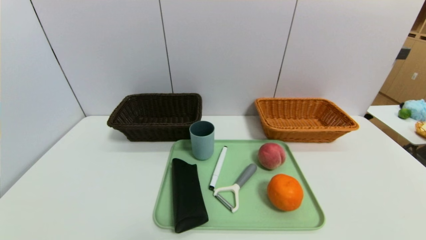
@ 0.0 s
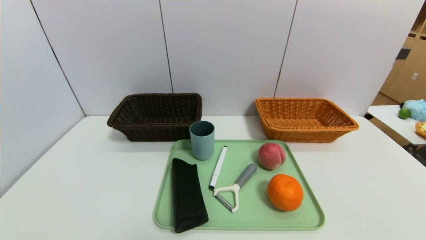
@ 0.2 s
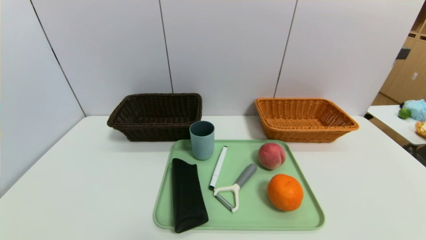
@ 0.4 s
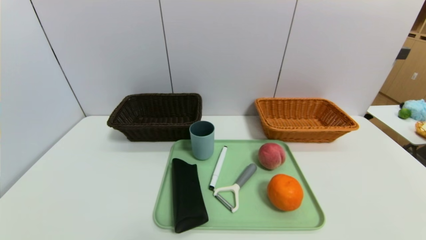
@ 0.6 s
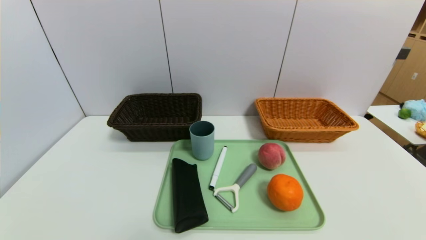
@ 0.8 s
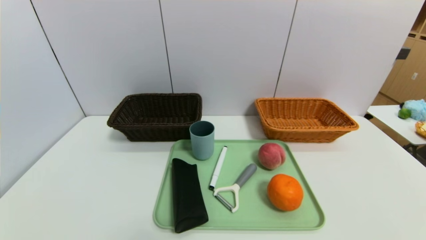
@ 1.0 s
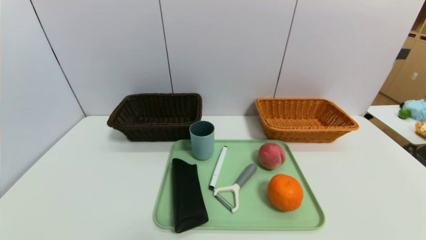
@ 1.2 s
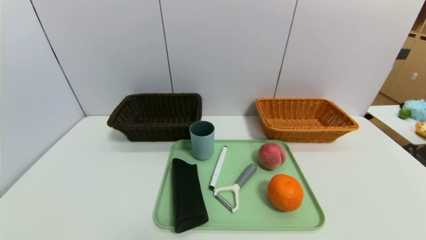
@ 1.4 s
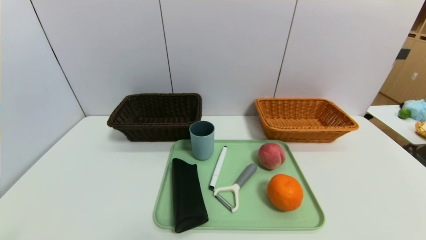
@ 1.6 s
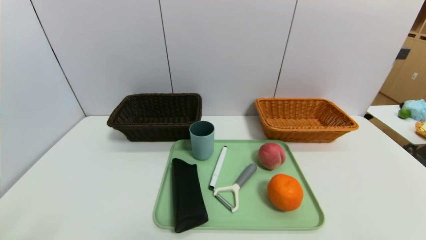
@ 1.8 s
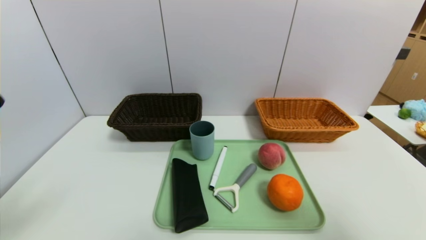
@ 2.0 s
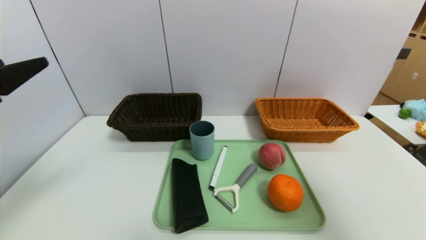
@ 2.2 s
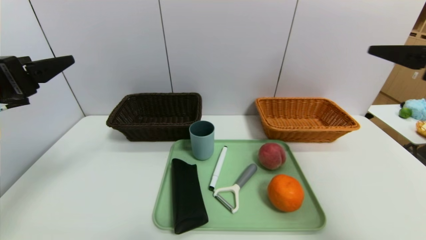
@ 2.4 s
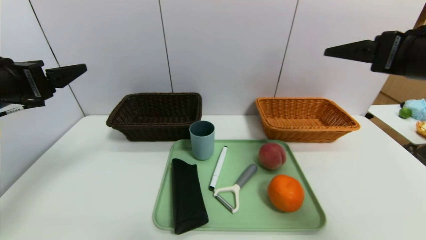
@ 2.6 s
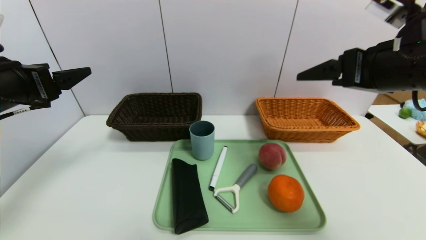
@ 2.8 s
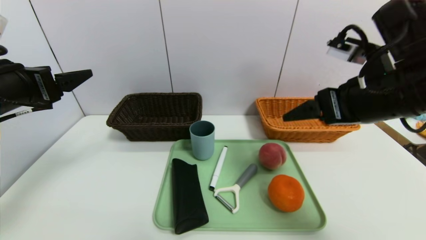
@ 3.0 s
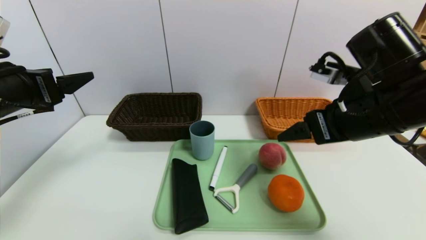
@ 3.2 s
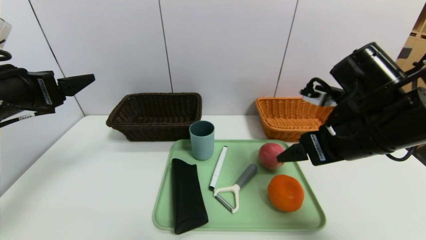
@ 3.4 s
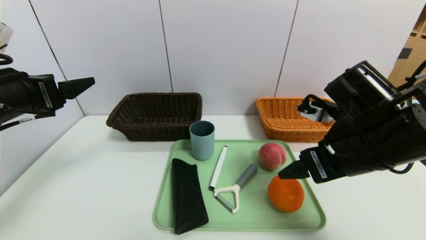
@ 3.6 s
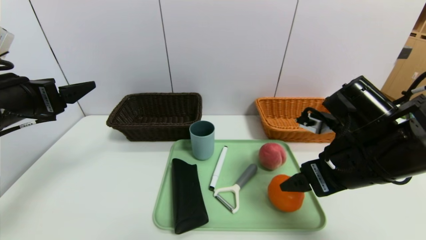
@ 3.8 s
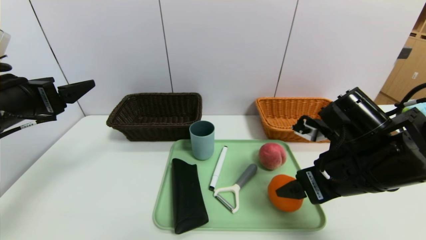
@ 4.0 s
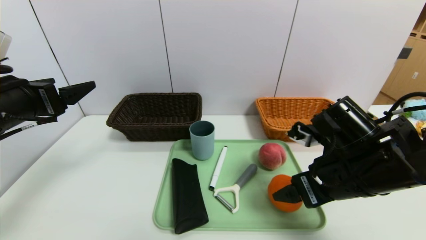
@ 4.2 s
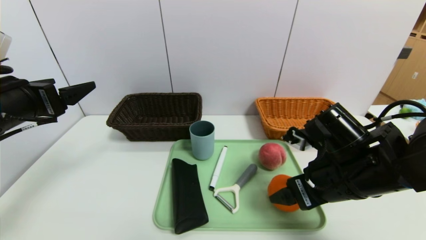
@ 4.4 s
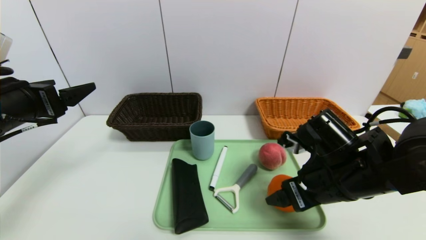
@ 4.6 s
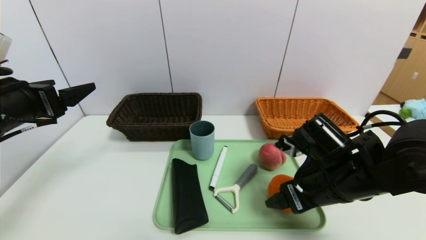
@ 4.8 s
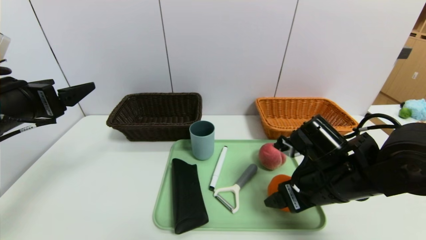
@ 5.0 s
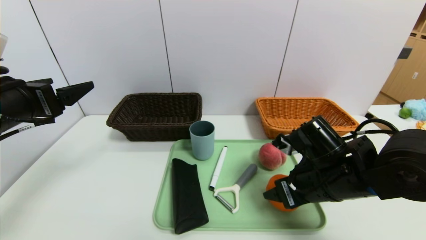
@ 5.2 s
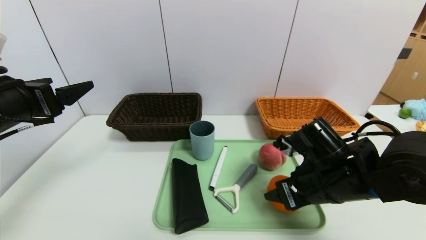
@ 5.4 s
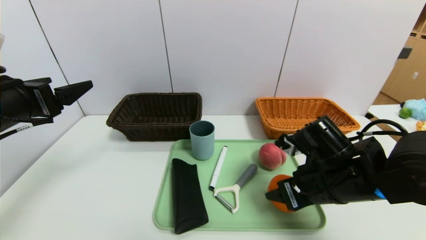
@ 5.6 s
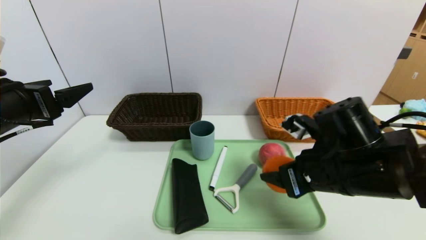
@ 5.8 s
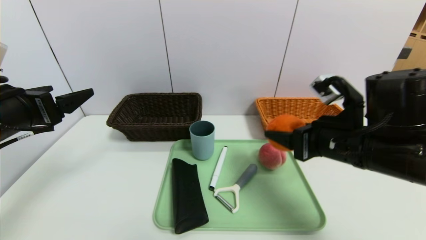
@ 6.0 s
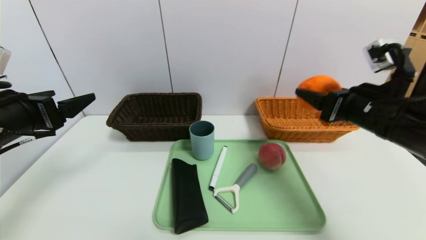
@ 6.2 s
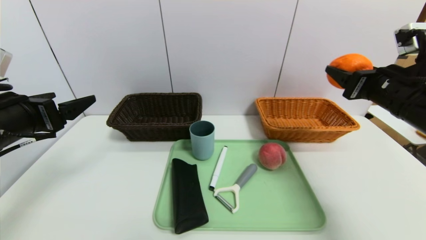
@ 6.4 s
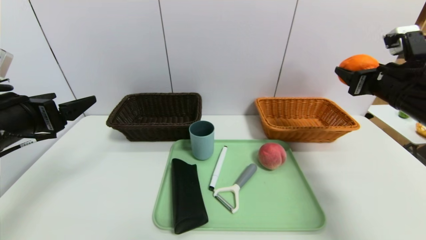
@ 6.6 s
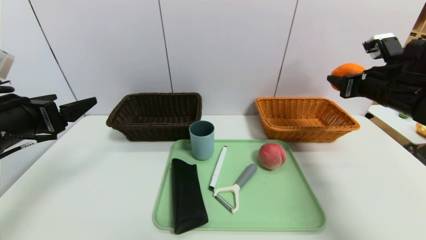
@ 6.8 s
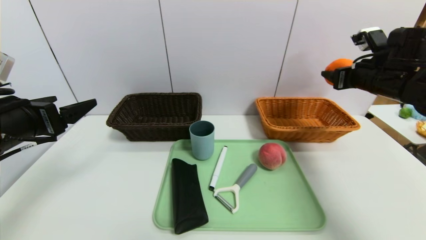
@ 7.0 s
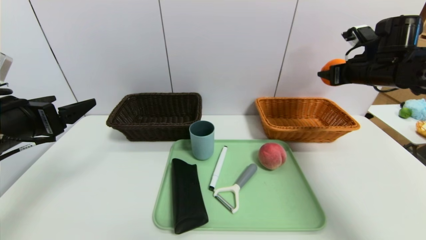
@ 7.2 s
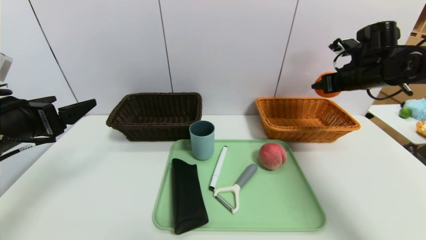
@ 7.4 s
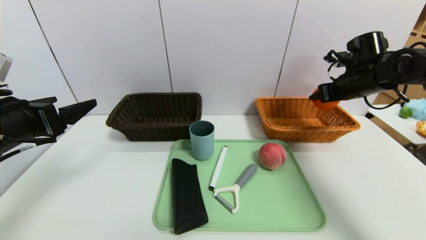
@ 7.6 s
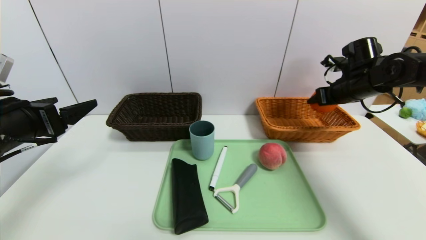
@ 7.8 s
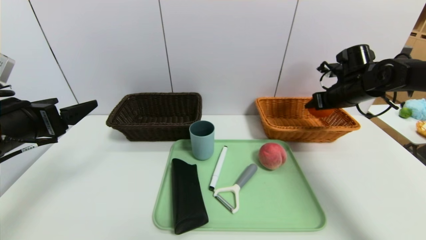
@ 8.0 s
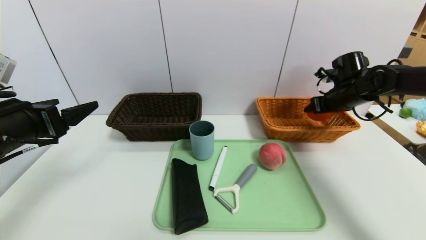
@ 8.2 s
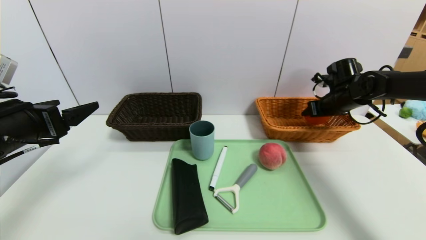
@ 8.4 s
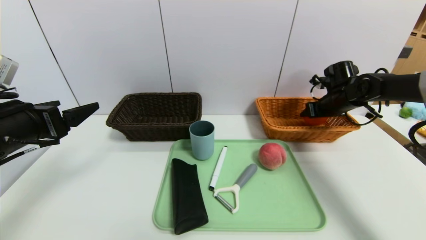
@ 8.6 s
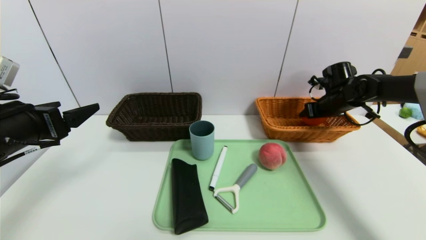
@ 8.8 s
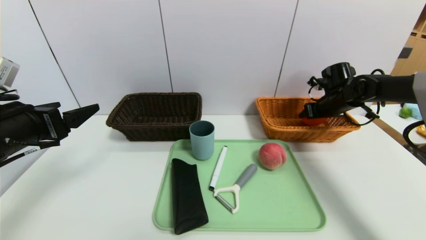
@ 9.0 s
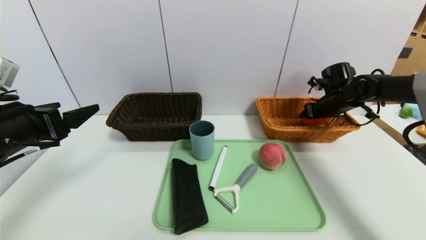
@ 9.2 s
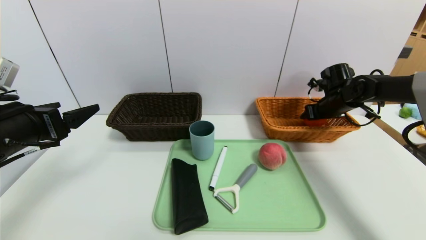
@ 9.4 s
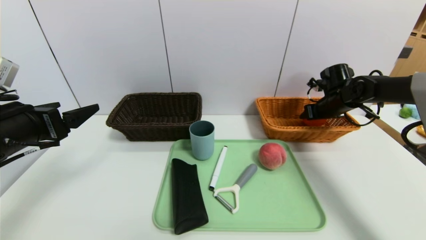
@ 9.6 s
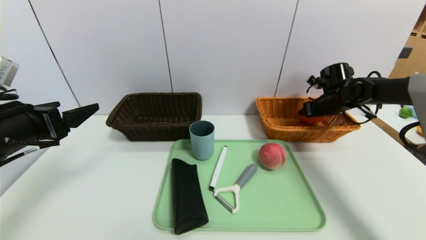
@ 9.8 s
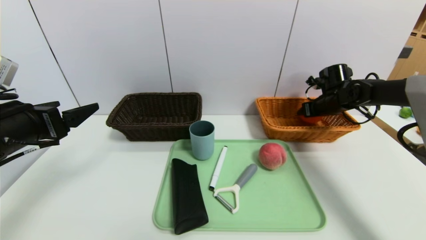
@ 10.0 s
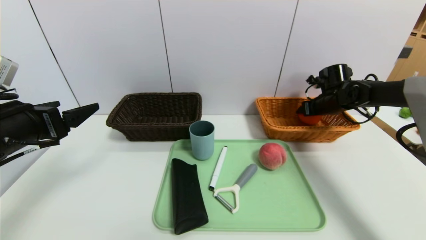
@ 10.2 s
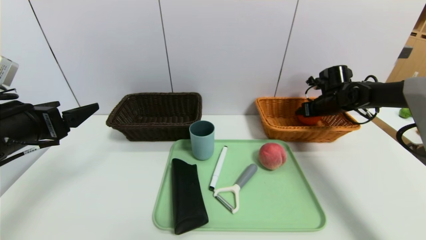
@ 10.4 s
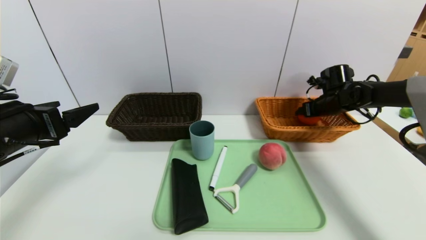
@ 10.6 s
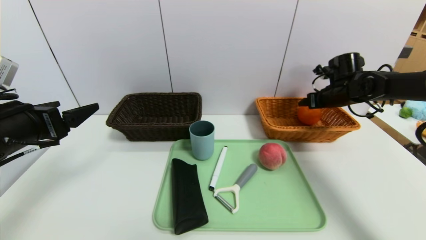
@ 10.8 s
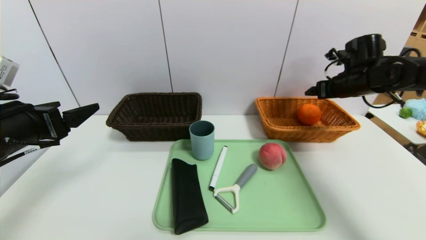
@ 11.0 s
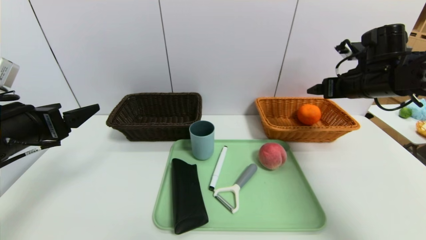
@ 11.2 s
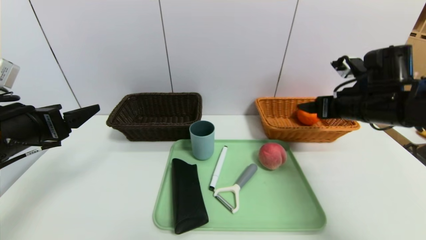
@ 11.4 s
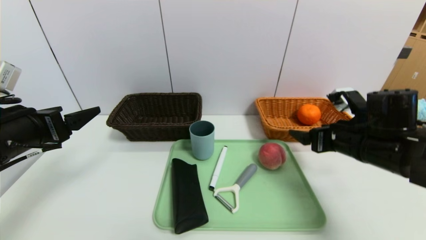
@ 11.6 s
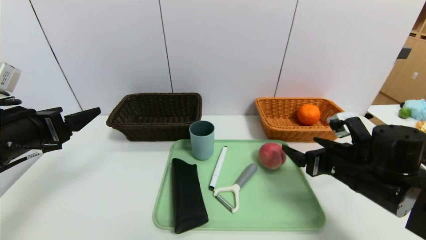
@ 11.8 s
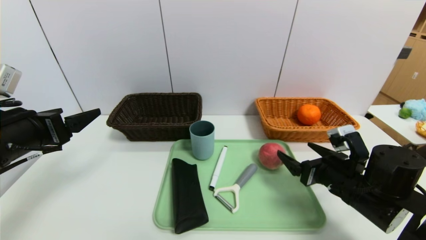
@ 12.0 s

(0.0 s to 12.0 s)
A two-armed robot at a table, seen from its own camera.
Task of the whole recording: place the food in the right basket with the right gripper, and place the non food items in the left basket with the left gripper.
Step, 0.0 s - 10.6 s: Grasp the orange and put it in the right basket.
1.6 s - 3.0 s: The right gripper goes approximately 30 cm forward, to the left and upward. The left gripper goes roughly 25 cm forward and upward.
3.0 s - 4.4 s: The right gripper travels downward by roughly 10 cm.
4.4 s - 6.0 s: The right gripper shifts about 5 cm upward, and closes.
6.0 s - 7.6 s: The right gripper travels forward and to the right by about 20 cm.
7.6 s - 9.0 s: The right gripper heads downward and forward, covering approximately 10 cm.
9.0 s - 10.4 s: There are only small adjustments of the grippers.
10.4 s - 12.0 s: The right gripper shifts about 25 cm backward.

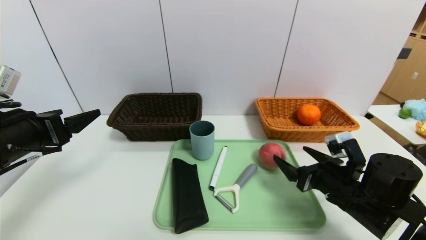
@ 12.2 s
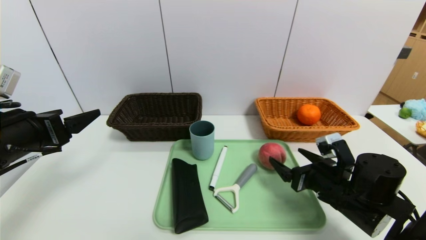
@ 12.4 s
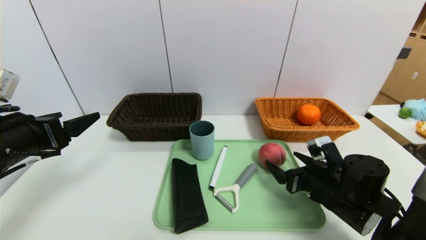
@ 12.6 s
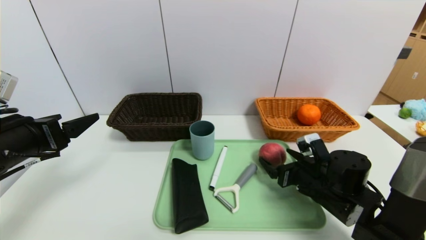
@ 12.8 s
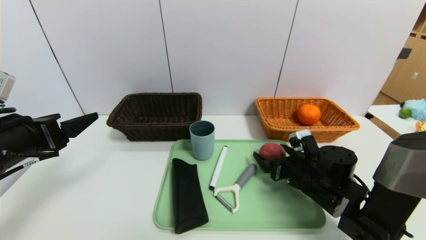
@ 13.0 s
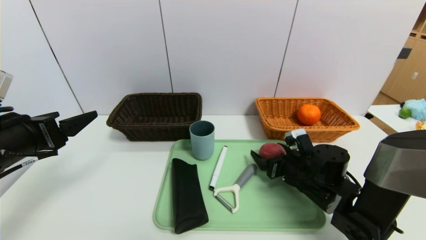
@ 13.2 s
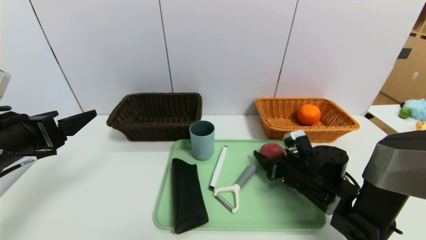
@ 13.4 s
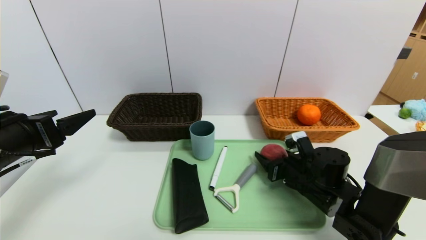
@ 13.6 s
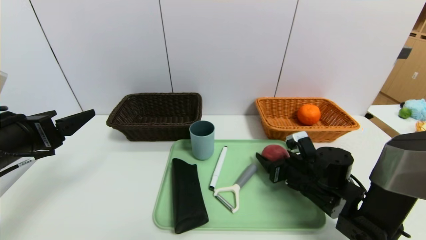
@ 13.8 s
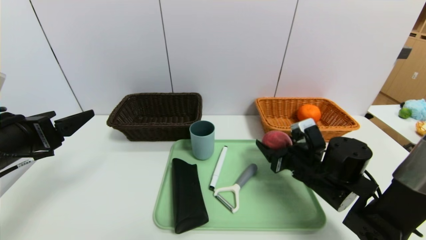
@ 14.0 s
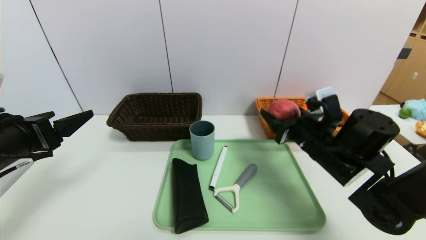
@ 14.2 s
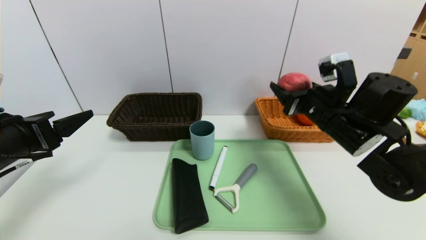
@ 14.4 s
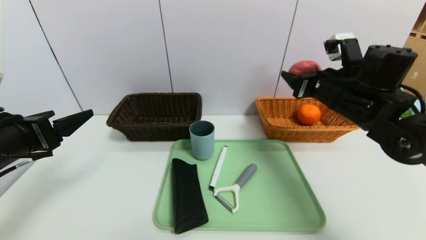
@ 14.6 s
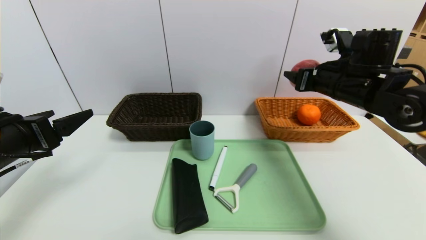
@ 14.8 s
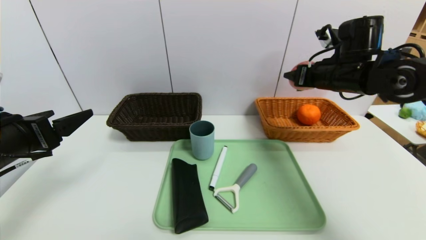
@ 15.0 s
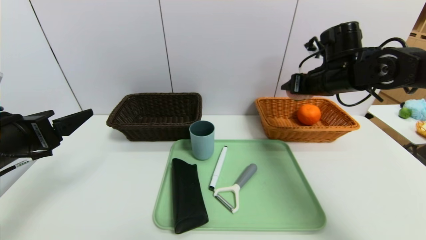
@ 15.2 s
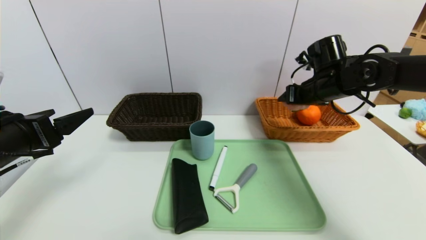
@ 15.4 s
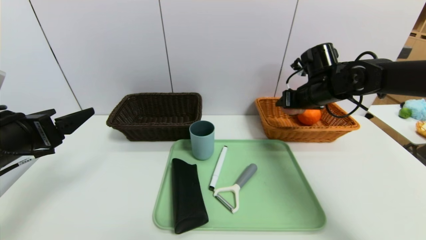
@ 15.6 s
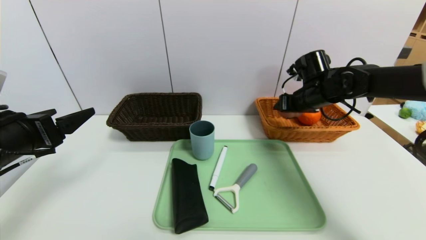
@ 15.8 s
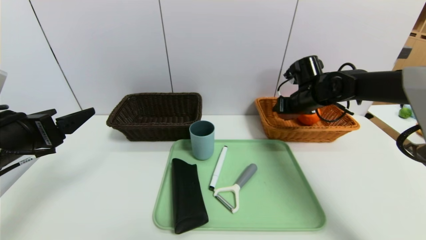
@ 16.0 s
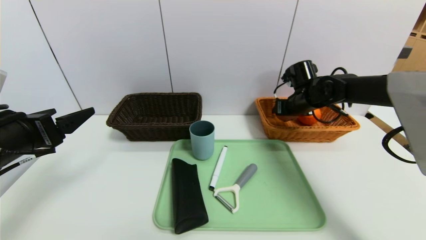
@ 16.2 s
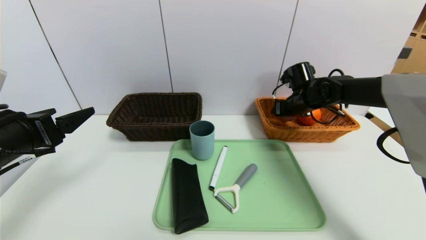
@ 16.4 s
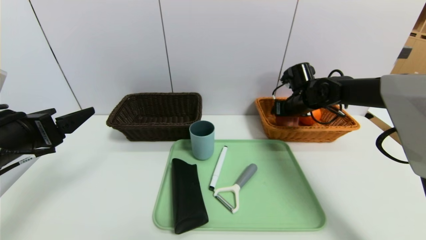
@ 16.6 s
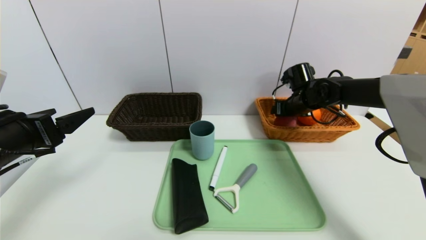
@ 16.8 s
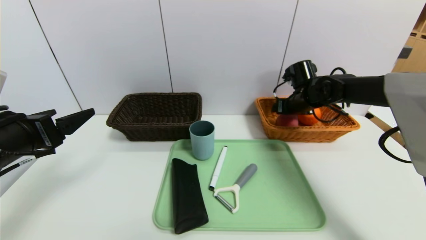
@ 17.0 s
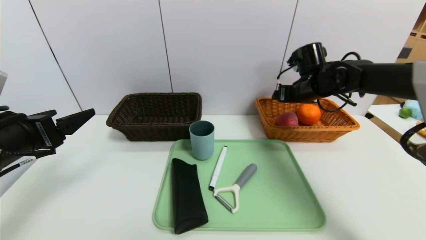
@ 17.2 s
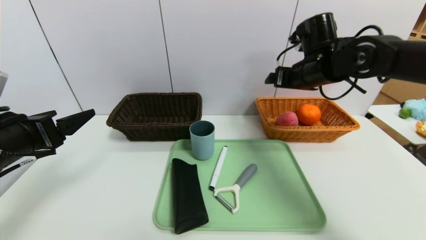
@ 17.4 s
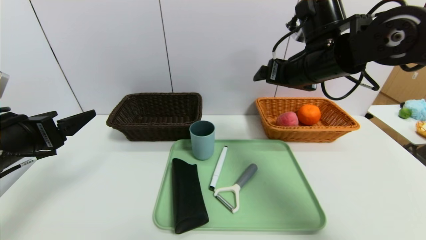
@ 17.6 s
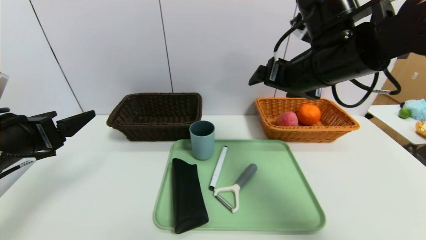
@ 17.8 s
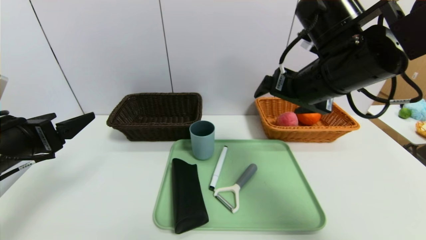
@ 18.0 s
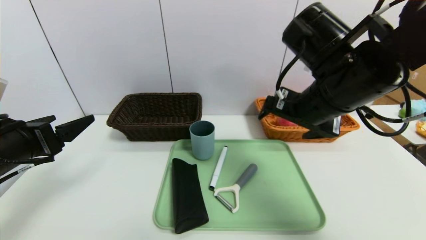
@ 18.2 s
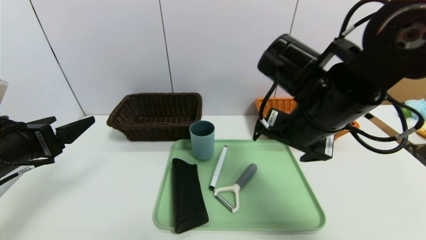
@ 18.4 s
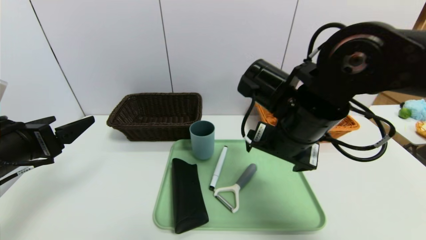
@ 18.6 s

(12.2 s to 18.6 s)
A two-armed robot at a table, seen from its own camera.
Task of the whole recording: place the food in the right basket with the right gripper, and place the non food items in the left basket with the left gripper.
Step, 12.2 s - 17.2 s: Grasp the peach and put it in the right basket.
12.2 s - 13.8 s: The right gripper shifts roughly 5 cm forward.
13.8 s - 15.4 s: The right gripper goes roughly 20 cm upward and forward.
15.4 s - 17.0 s: The right gripper goes approximately 10 cm forward and downward.
17.0 s - 18.6 s: The right gripper heads backward and to the left, covering some 25 cm.
